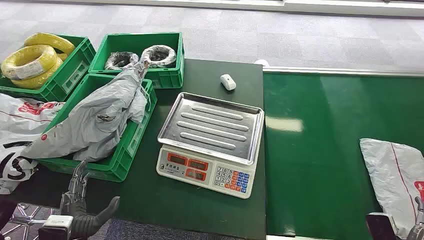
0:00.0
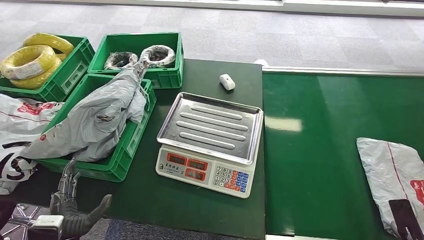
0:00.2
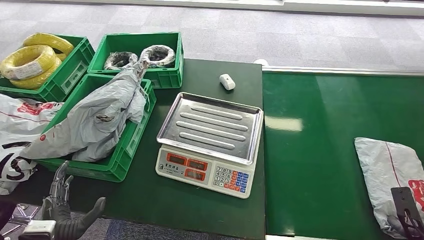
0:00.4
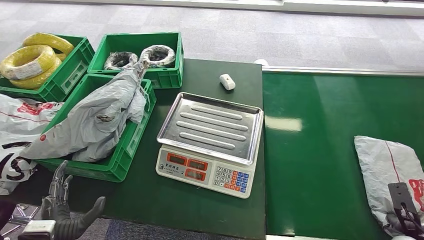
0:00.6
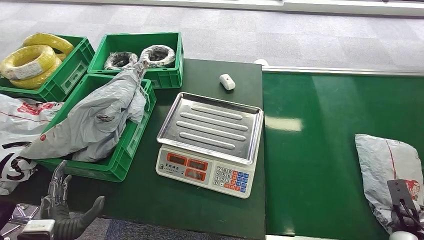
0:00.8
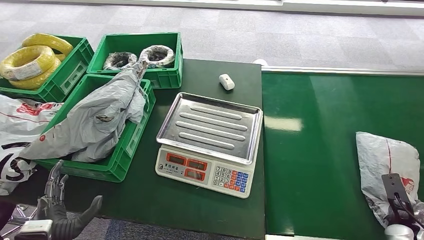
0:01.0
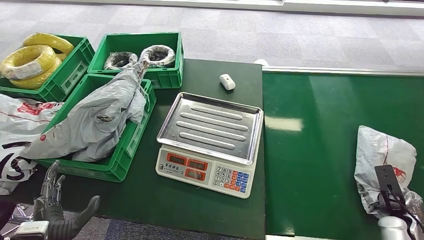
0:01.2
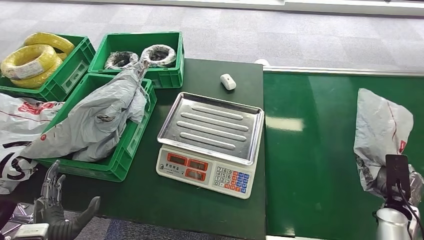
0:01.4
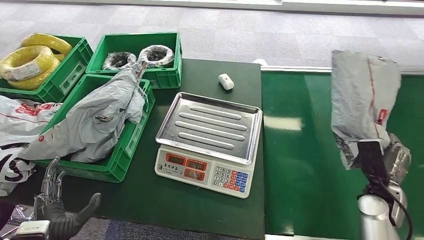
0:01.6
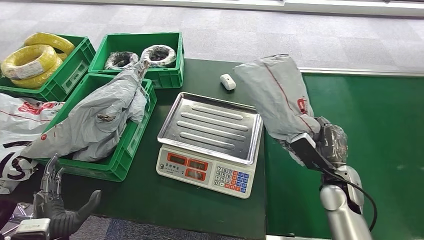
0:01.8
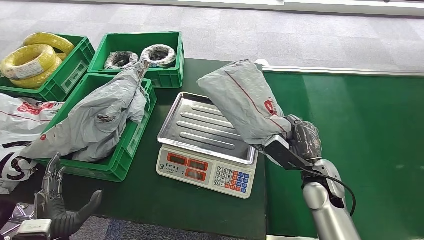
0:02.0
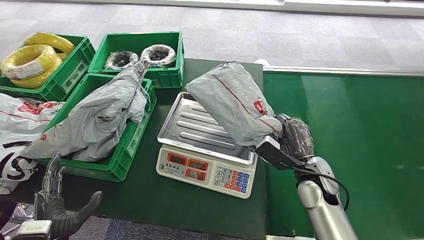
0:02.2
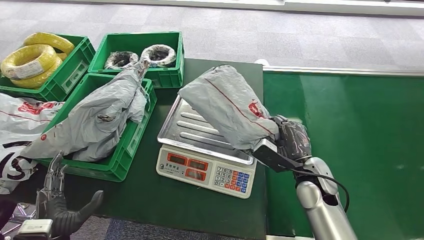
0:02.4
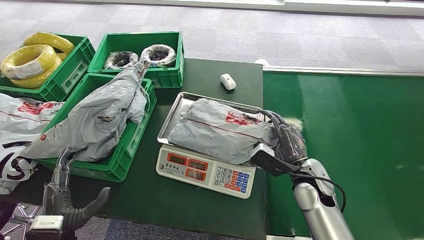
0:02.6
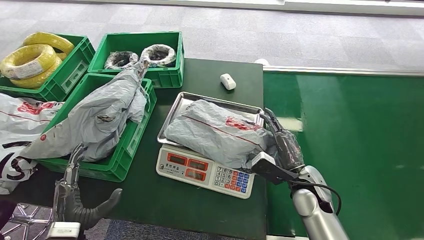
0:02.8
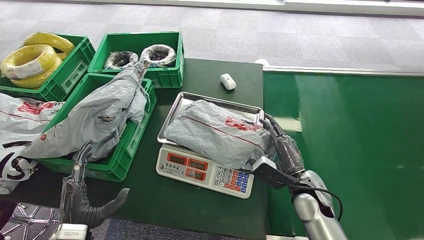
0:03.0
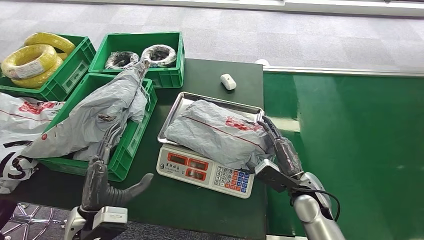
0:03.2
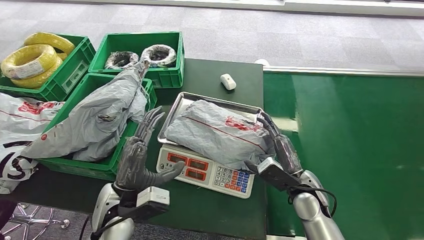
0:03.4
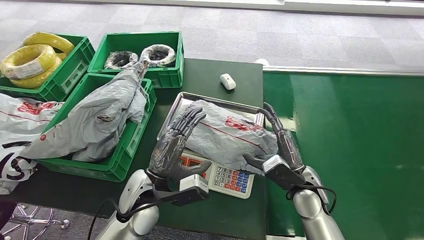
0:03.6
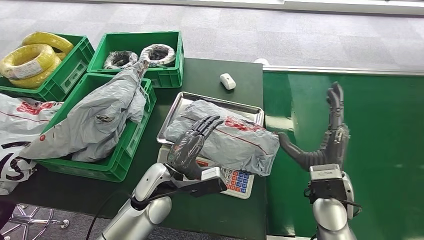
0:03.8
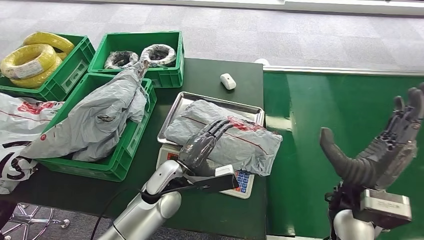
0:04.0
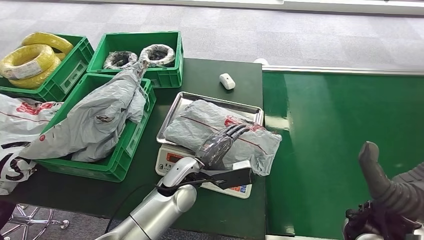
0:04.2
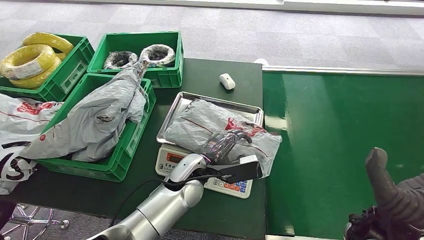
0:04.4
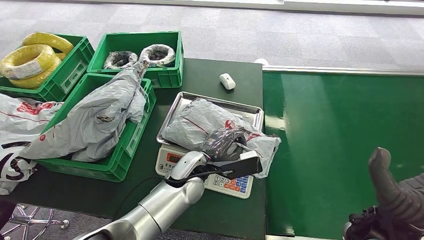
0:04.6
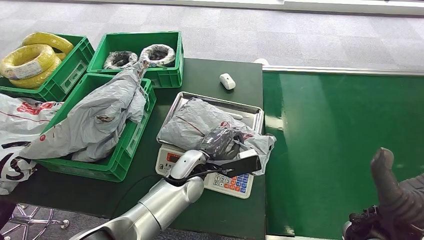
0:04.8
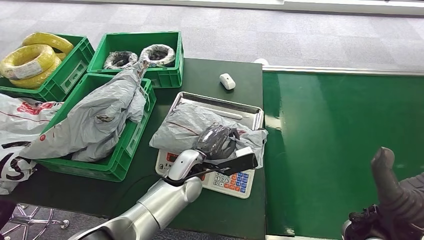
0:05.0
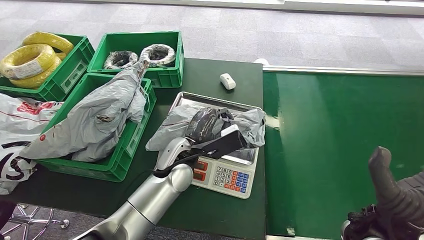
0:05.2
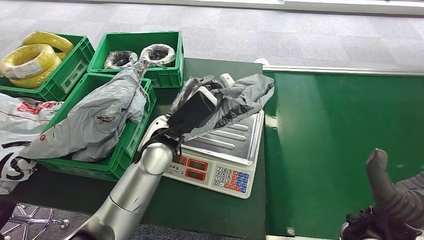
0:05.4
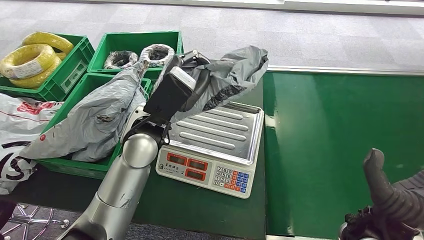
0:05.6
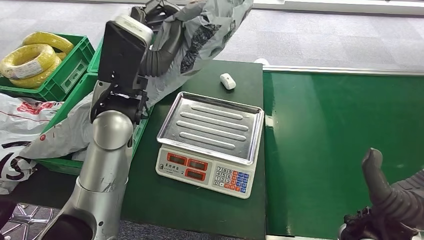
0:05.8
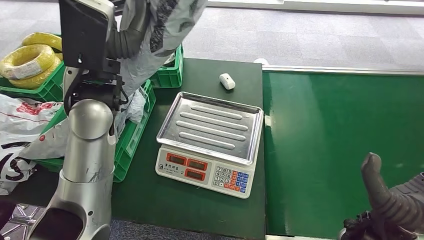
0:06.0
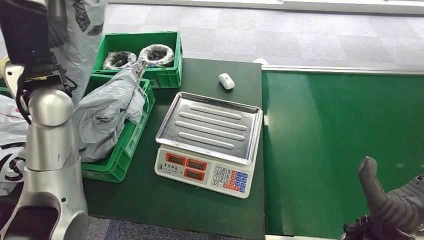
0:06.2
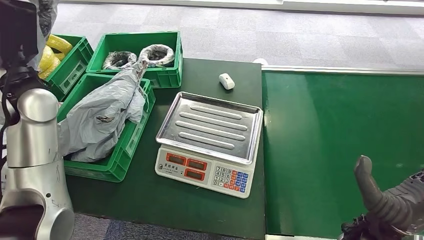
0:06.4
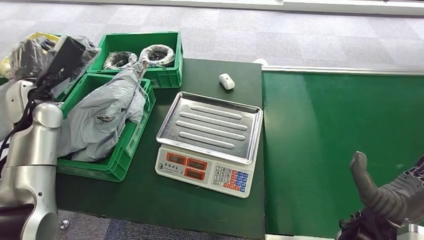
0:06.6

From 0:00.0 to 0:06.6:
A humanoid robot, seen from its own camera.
Step, from 0:00.0 to 0:01.8: Pick up the package from the conveyor belt.
Step, from 0:02.0 to 0:03.4: Place the package onto the inbound machine.
Step, from 0:03.8 to 0:05.6: Pick up the package from the inbound machine.
Step, from 0:05.8 to 0:06.6: Place the package into the parcel locker.

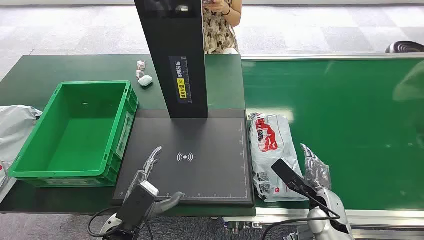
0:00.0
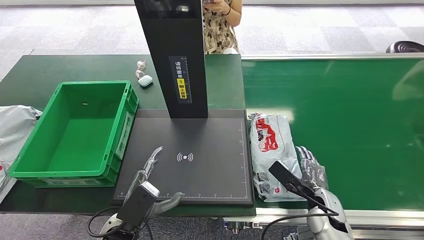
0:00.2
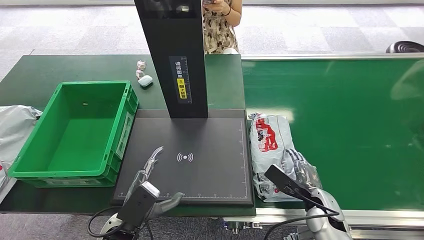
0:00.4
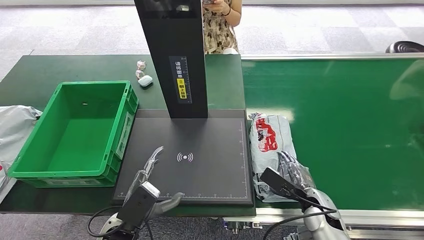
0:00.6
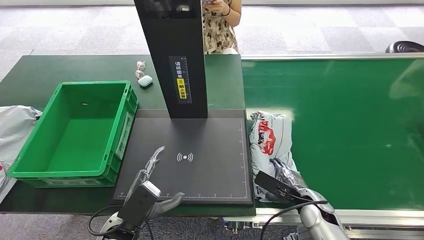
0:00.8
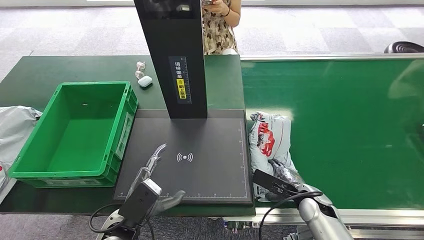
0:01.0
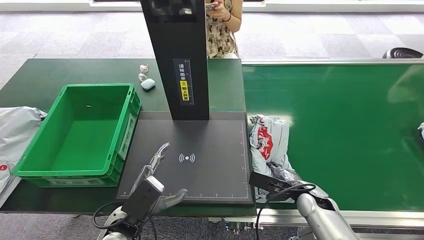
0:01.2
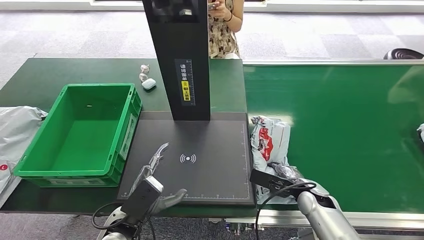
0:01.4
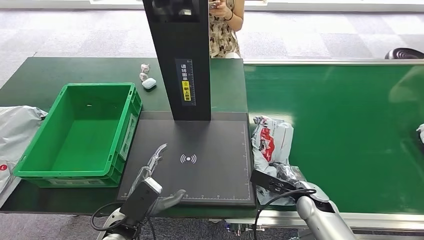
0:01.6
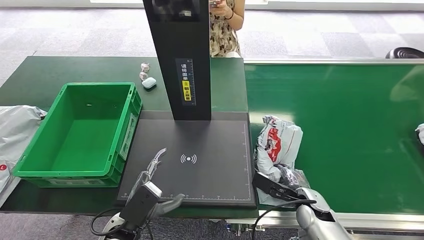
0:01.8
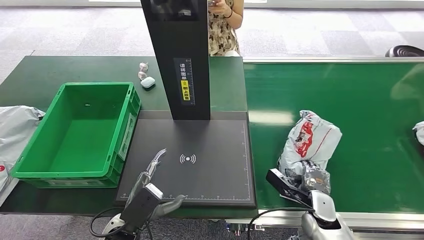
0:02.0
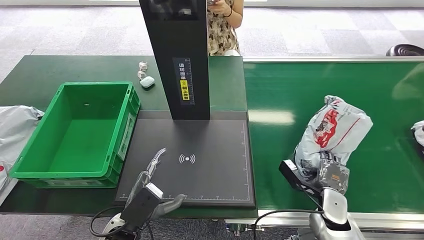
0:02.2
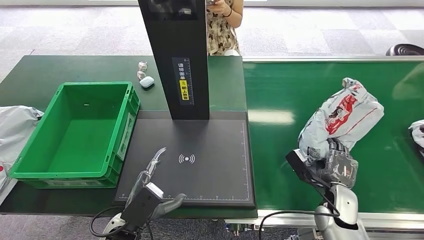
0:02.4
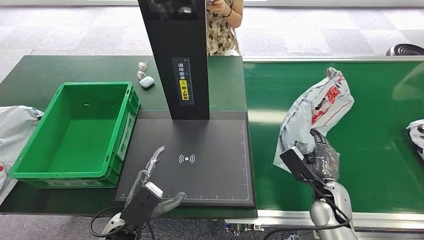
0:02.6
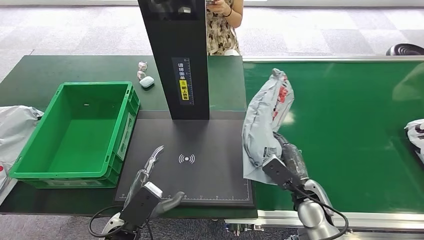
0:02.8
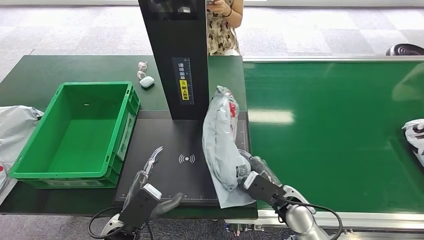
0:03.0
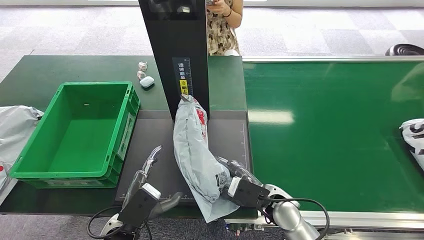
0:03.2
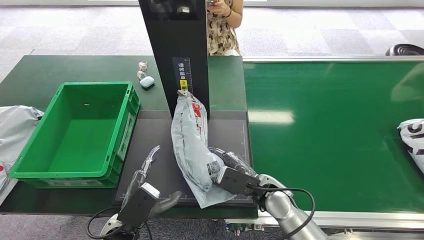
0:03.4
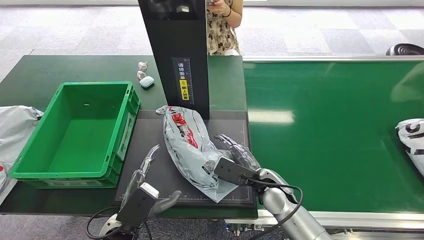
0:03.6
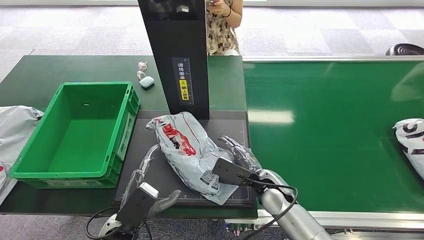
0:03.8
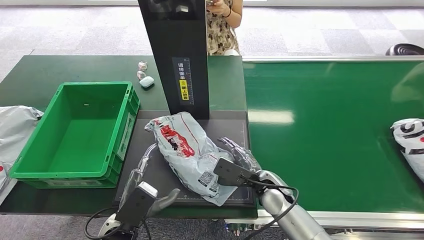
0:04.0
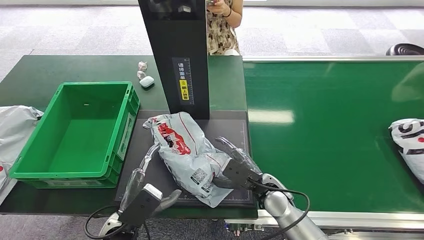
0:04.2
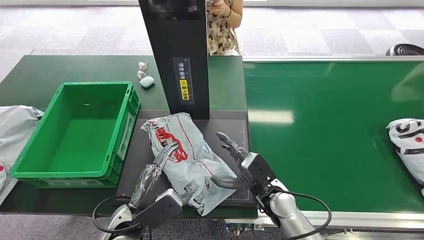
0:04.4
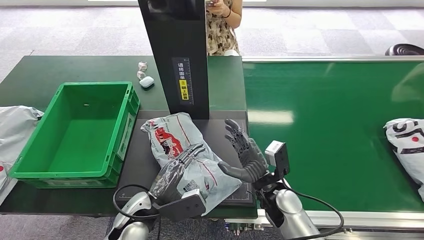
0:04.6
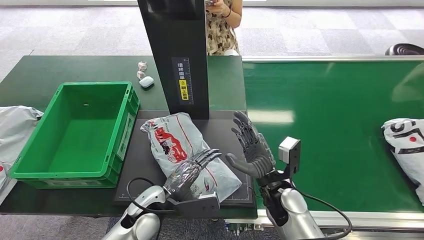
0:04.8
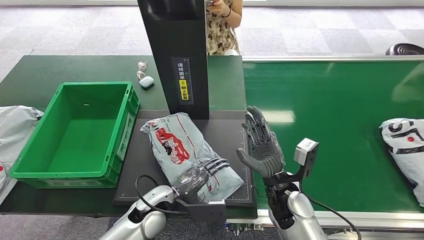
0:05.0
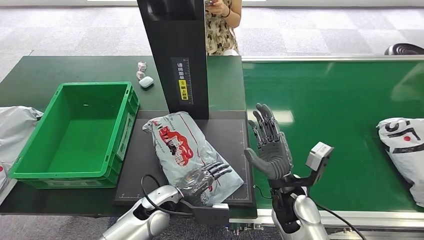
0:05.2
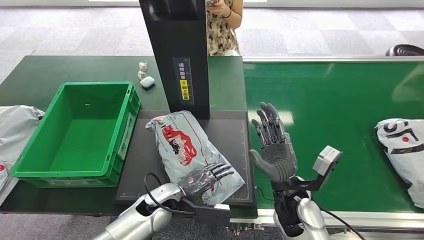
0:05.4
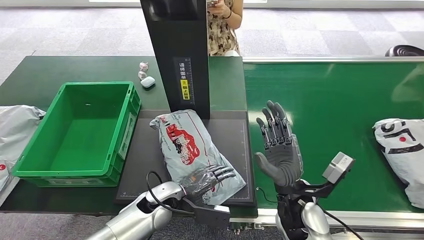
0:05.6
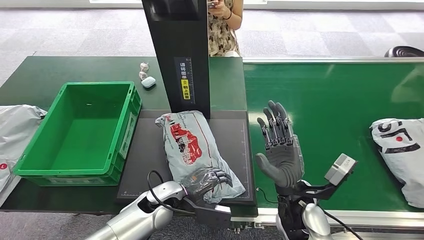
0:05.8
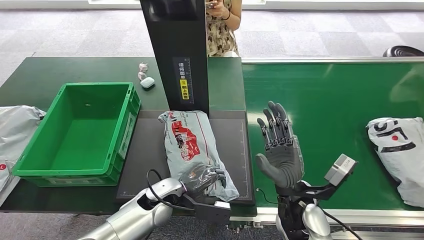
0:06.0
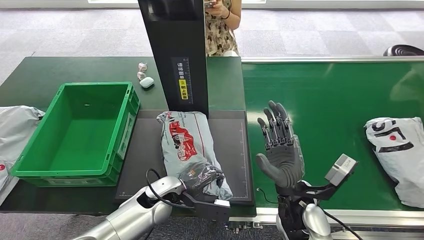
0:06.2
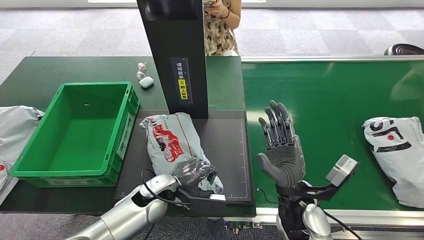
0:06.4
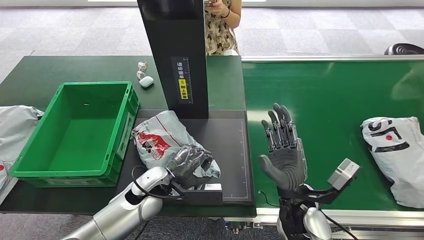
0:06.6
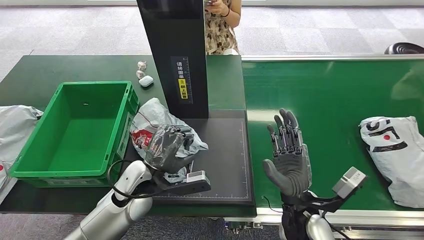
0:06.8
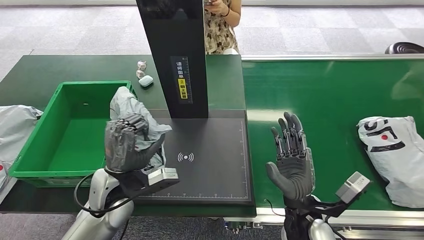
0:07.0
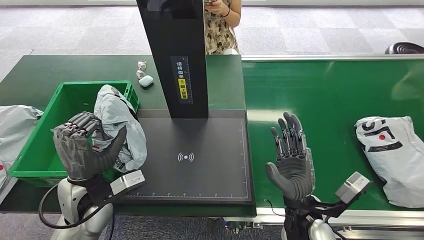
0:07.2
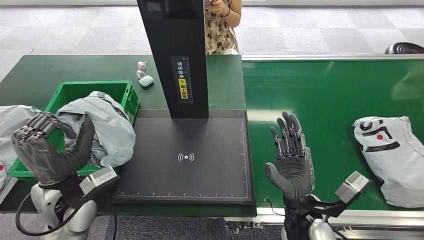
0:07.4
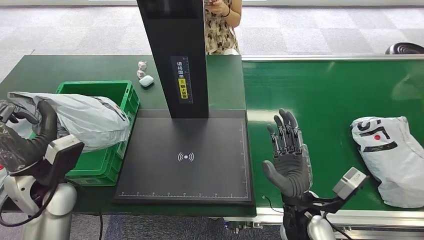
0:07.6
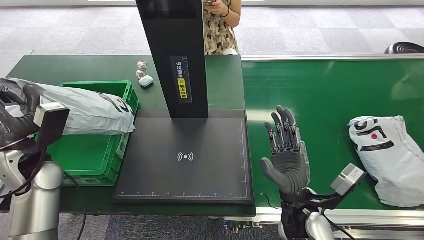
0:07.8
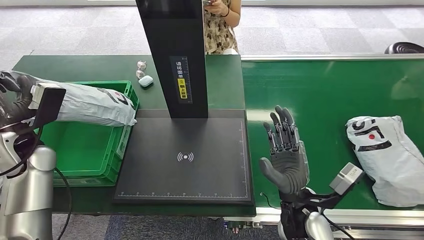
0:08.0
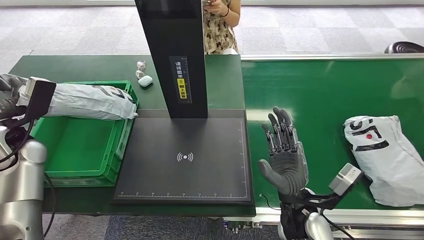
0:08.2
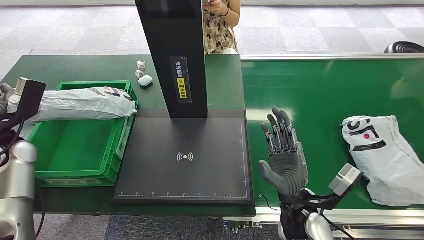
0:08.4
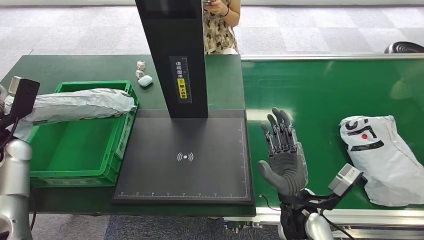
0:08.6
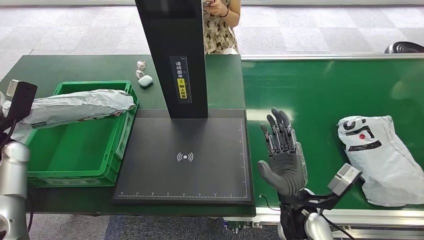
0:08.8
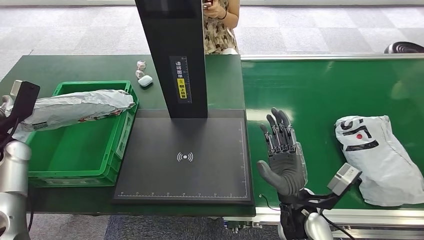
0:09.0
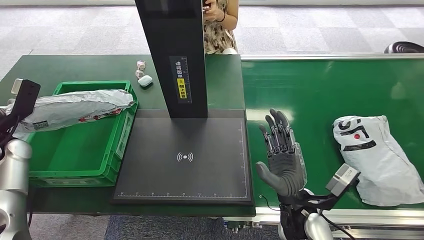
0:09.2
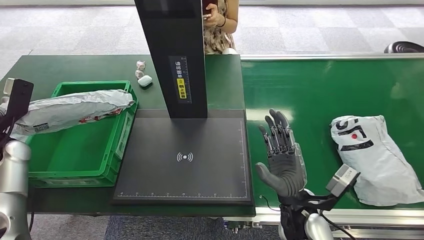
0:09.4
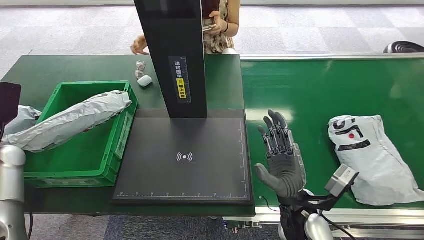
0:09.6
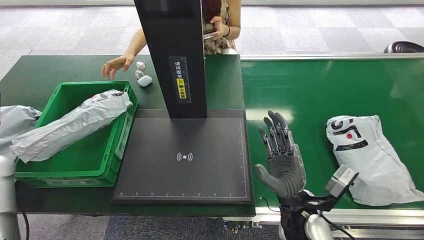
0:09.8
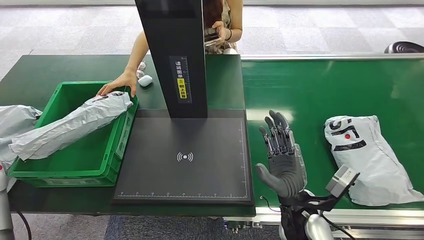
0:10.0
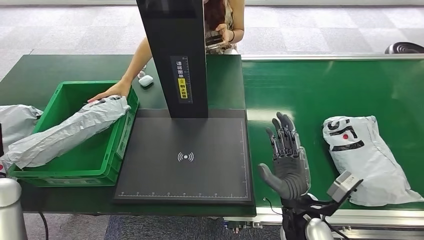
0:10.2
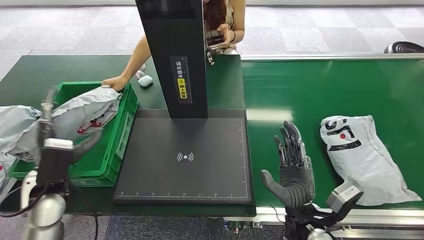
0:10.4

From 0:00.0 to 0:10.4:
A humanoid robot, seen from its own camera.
Step, from 0:00.0 to 0:02.4: Pick up the package from the conveyor belt.
Step, from 0:02.6 to 0:04.6: Place the package onto the inbound machine.
Step, from 0:04.8 to 0:07.2: Pick up the package from the inbound machine.
Step, from 0:07.6 to 0:10.2: Place the package into the parcel locker.
From 0:03.0 to 0:04.4: The right hand ends up approximately 5 cm from where it was.
